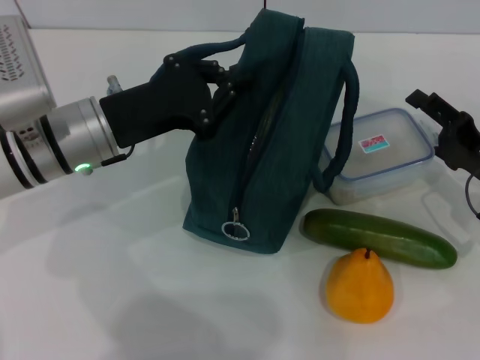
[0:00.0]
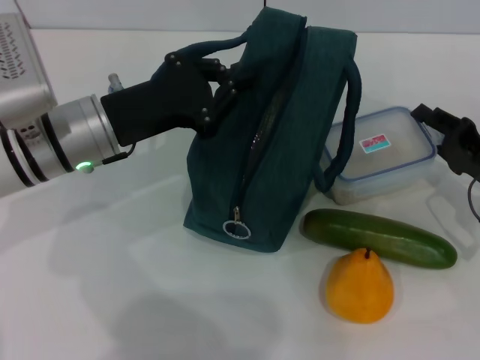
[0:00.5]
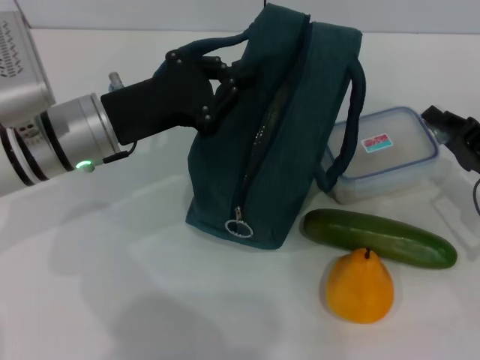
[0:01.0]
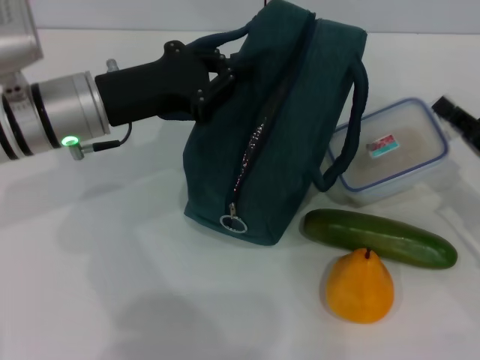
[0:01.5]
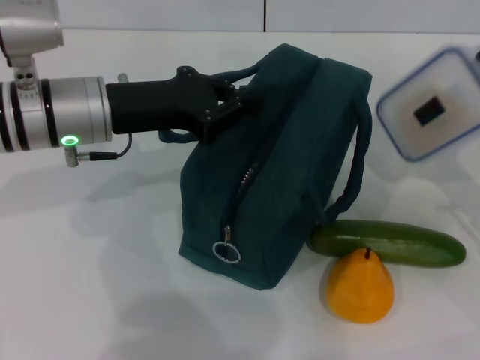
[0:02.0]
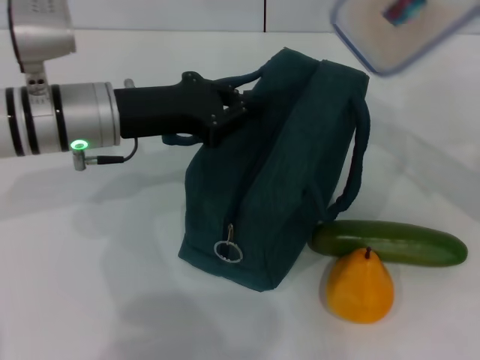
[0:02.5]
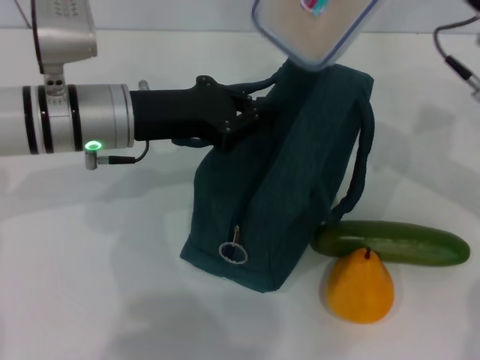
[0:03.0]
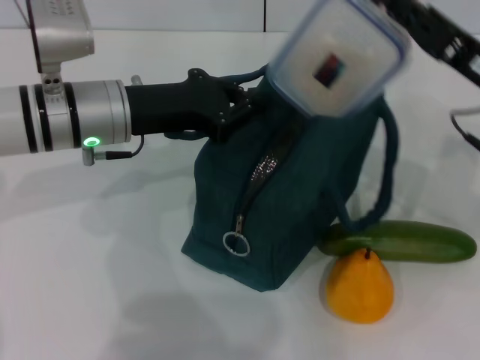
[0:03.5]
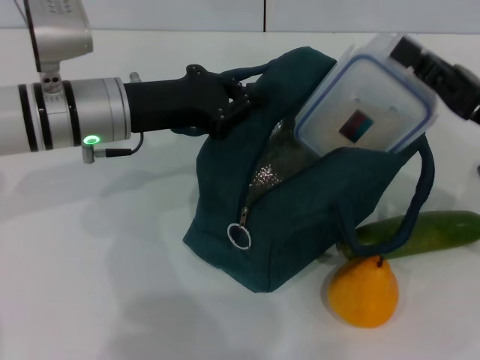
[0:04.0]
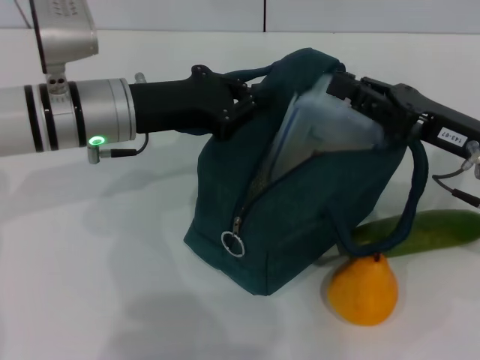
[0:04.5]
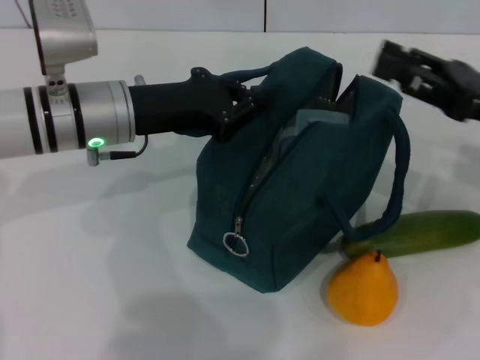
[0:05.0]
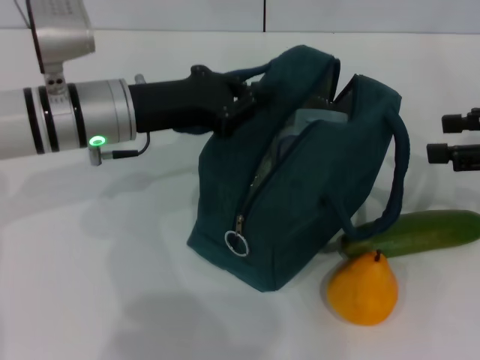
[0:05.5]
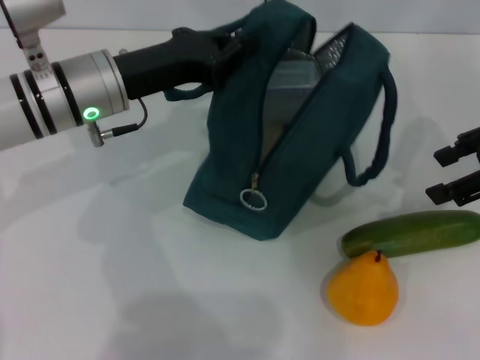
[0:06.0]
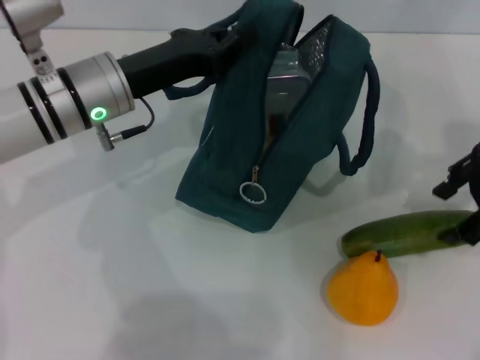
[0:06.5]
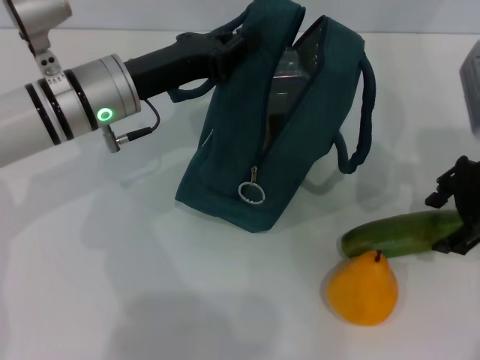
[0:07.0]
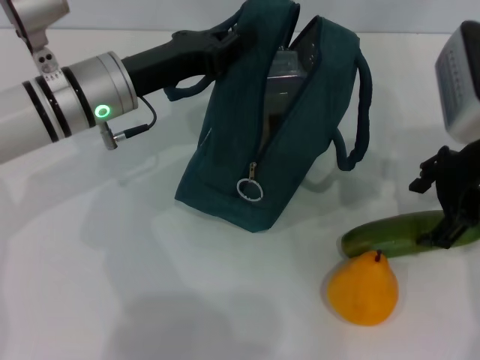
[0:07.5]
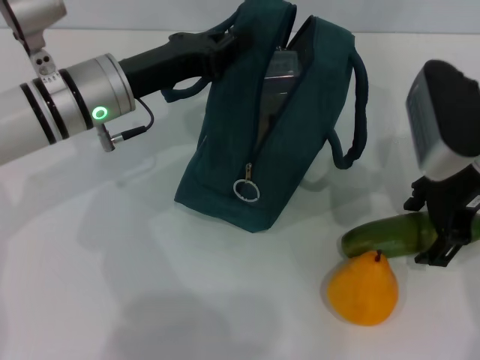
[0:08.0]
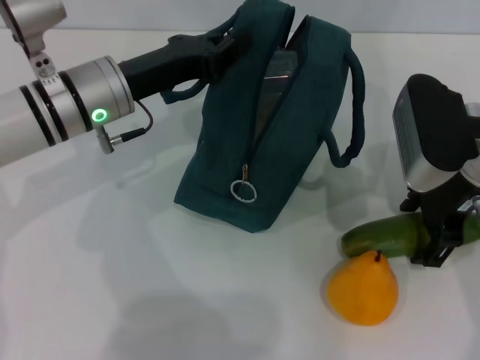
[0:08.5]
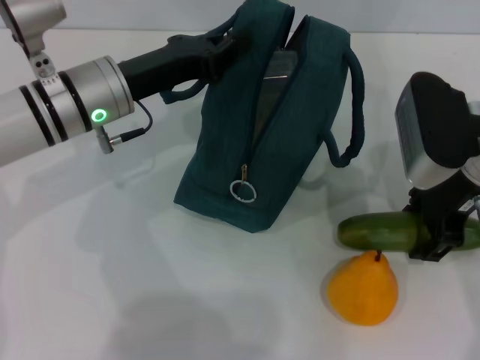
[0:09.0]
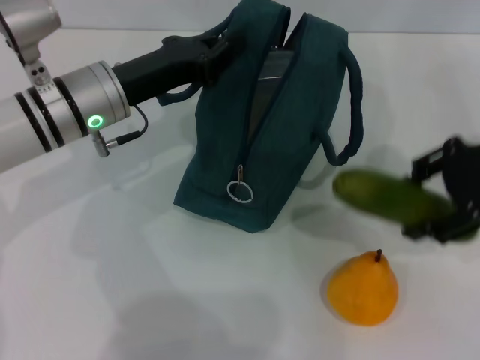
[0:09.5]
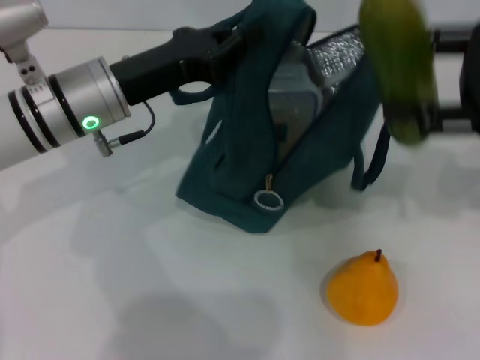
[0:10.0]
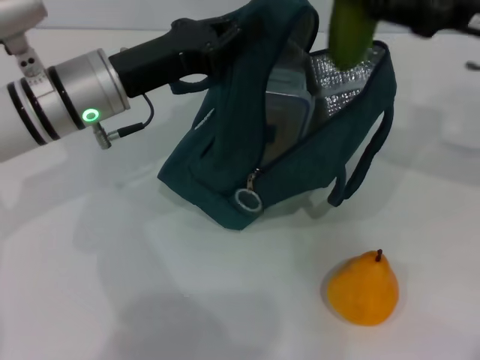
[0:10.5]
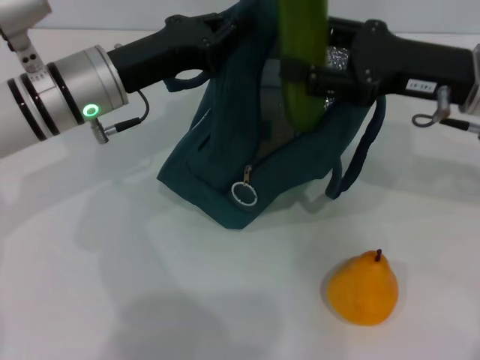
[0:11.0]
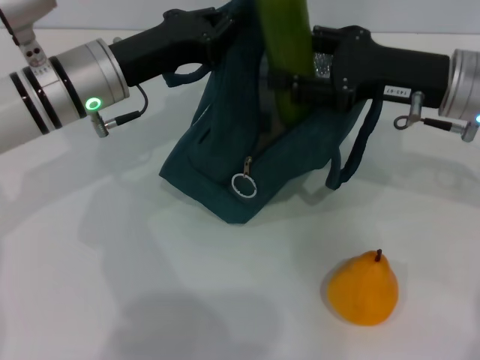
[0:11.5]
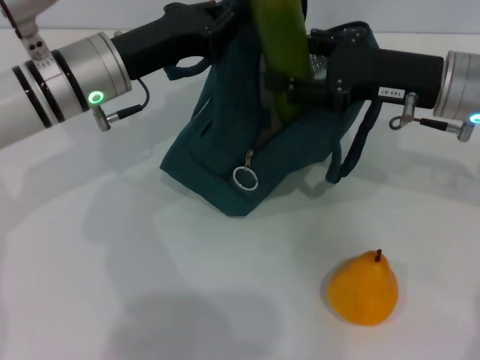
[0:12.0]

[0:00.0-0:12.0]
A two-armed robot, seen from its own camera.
Step, 0:01.5 to 0:05.0: Place the lunch box into the lunch bag with your right hand.
Step, 0:05.5 to 0:08.5: Pick up the cucumber with your right hand.
0:00.0 to 0:02.0: The right gripper shifts by some 5 cm, and closes its fingers.
0:04.0 to 0:06.0: The right gripper goes roughly 10 cm upward, and opens.
0:06.0 to 0:08.0: The right gripper shifts some 10 cm to the left.
0:08.0 to 0:10.0: The right gripper is displaced to the right and upward by some 10 cm.
0:10.0 to 0:12.0: The right gripper heads to the left, downward and forward, covering about 15 cm.

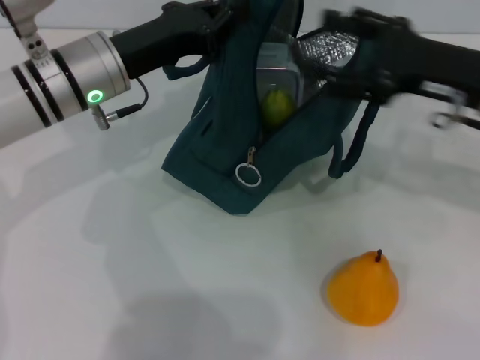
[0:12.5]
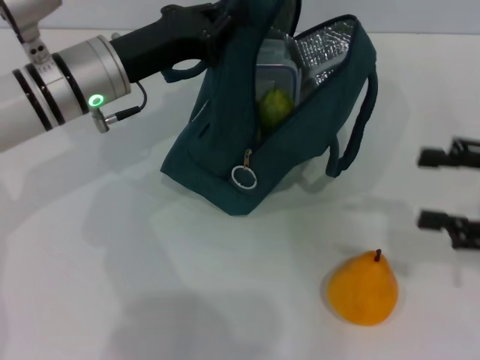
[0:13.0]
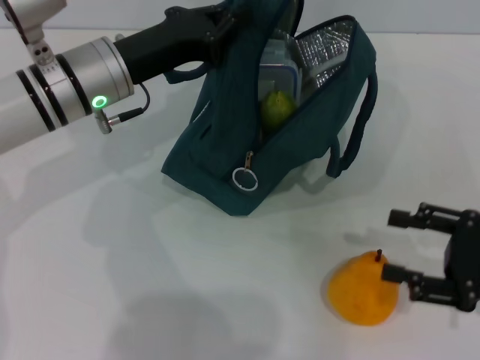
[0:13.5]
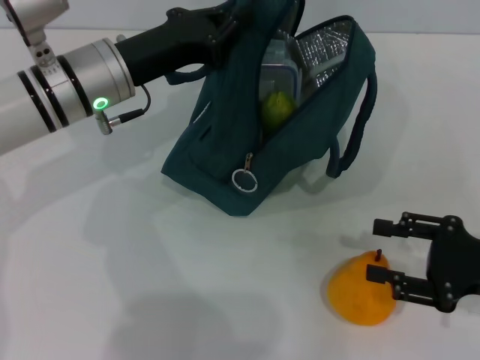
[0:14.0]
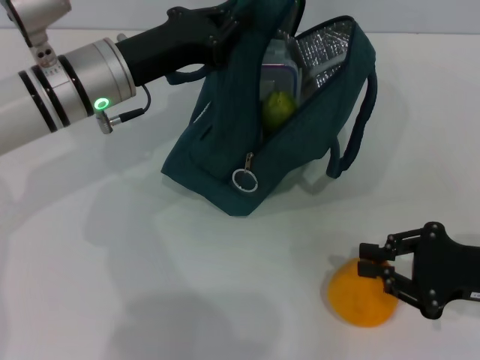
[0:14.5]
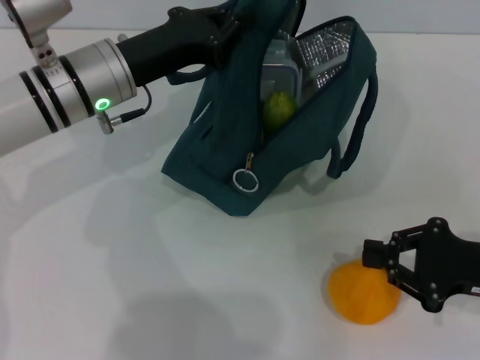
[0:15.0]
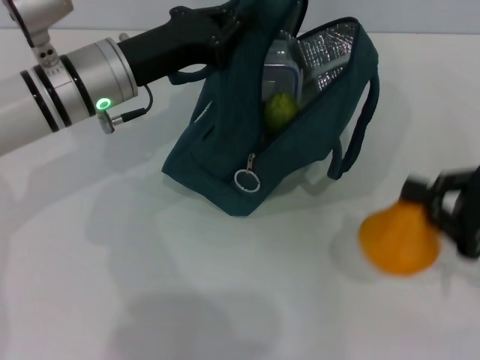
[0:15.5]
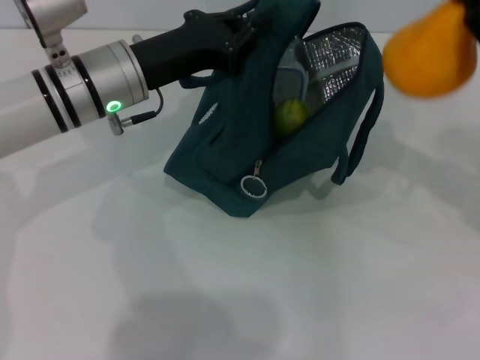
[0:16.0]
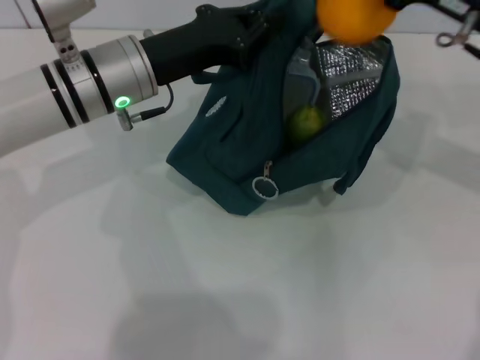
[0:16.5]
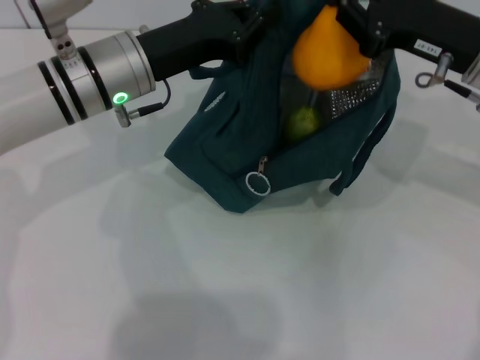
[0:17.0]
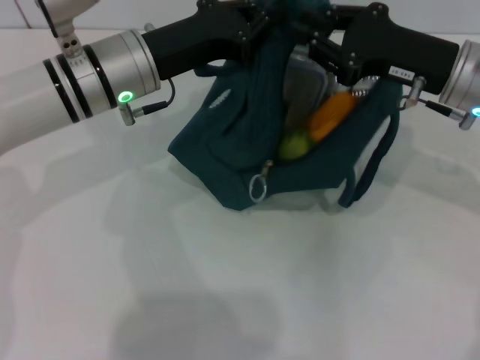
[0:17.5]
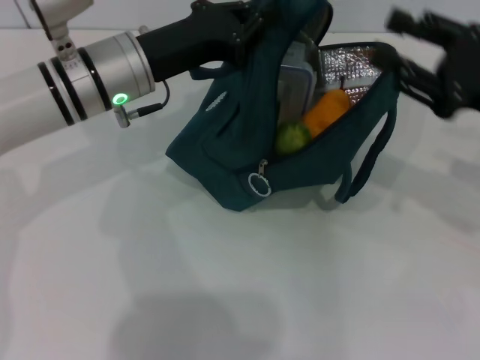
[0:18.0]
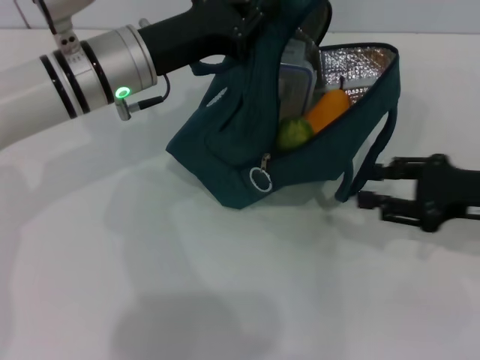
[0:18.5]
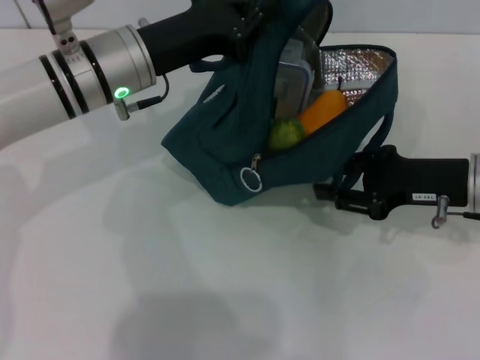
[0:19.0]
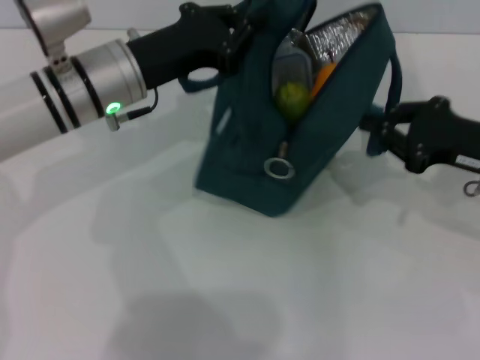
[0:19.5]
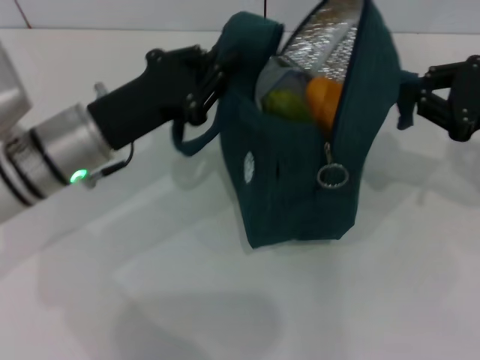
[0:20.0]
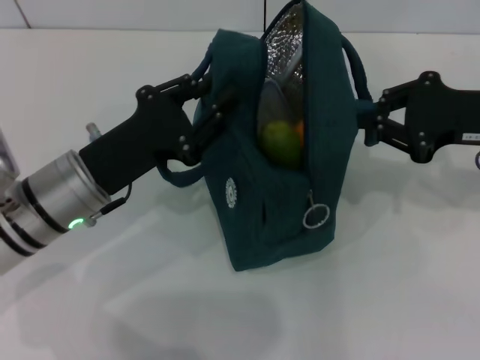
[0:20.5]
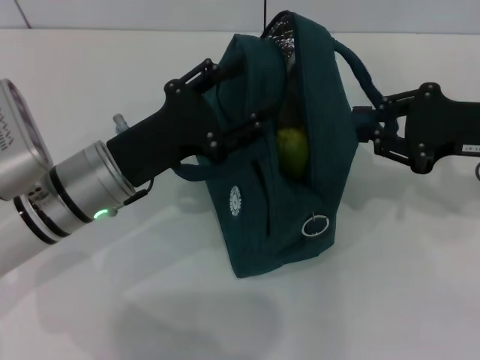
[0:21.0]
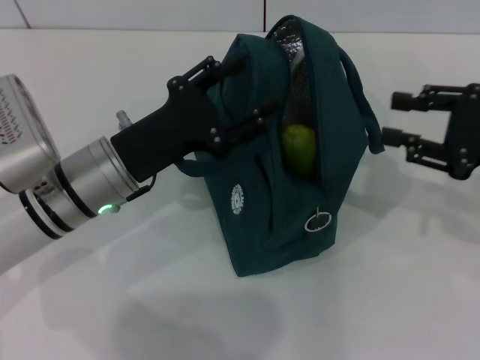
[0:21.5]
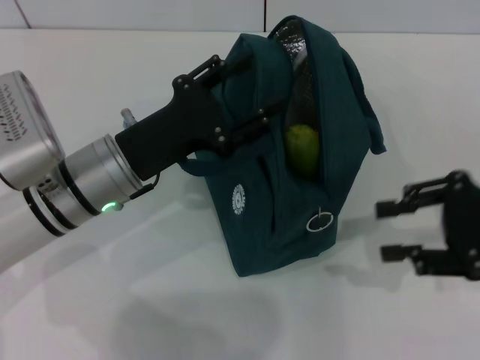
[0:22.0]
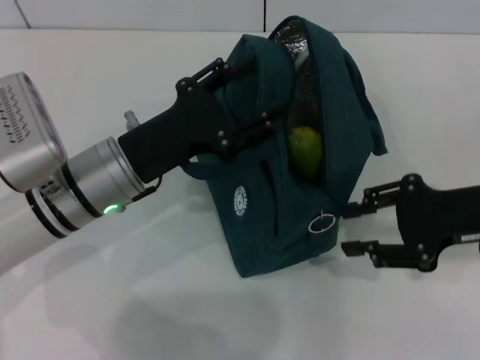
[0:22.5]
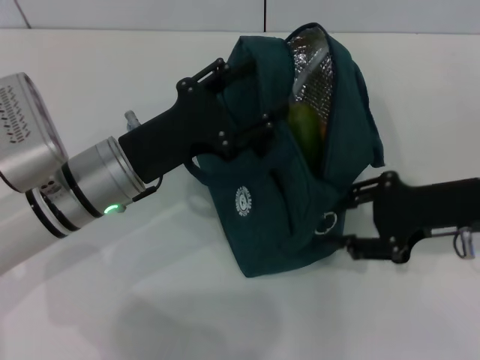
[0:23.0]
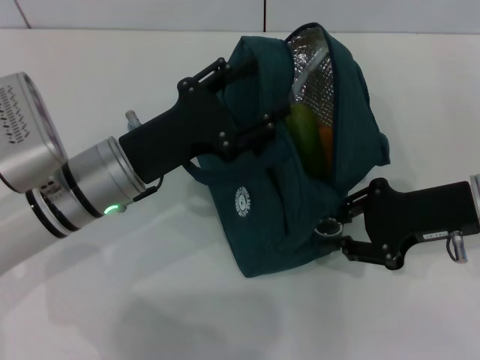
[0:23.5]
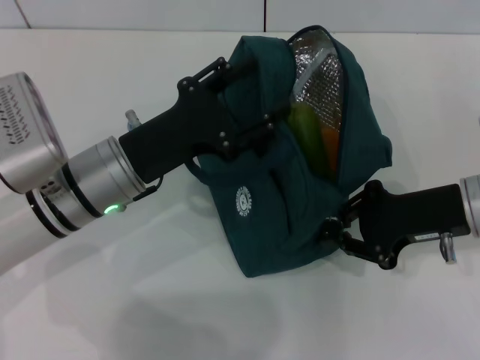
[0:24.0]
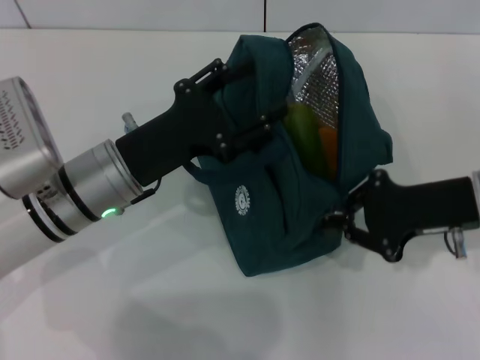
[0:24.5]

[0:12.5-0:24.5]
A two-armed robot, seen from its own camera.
Step, 0:12.5 to 0:14.5: Grab the pear with your right hand.
Step, 0:18.0 to 0:21.0: Hold the lunch bag with your right hand.
0:12.5 to 0:14.5: The right gripper goes some 15 cm backward, downward and to the right, and closes up.
0:14.5 to 0:16.5: The right gripper is displaced forward, upward and to the left by approximately 20 cm, and closes its fingers.
0:16.5 to 0:18.5: The right gripper heads downward, backward and to the right, covering some 15 cm, and opens.
0:18.5 to 0:20.5: The left gripper goes roughly 10 cm backward and downward. Meanwhile the right gripper is displaced upward by roughly 5 cm, and closes up.
0:20.5 to 0:22.5: The right gripper moves some 5 cm, and opens up. Meanwhile the left gripper opens.
0:22.5 to 0:24.5: The right gripper closes up.

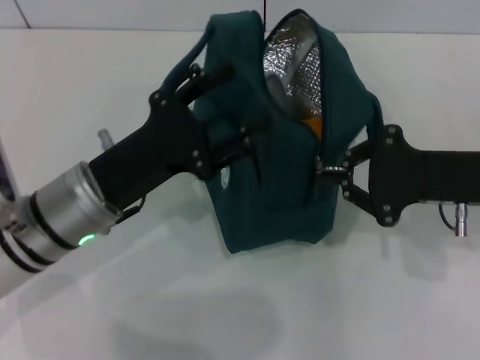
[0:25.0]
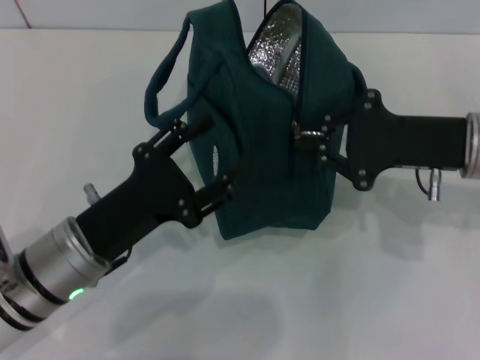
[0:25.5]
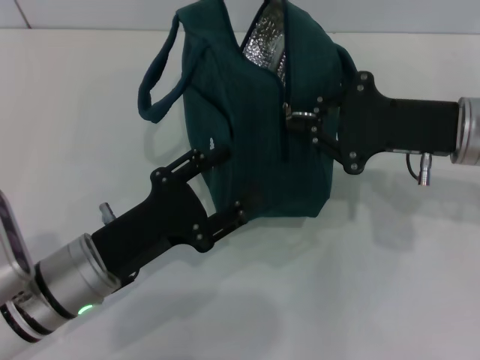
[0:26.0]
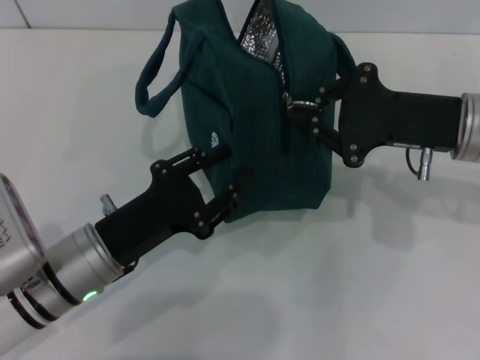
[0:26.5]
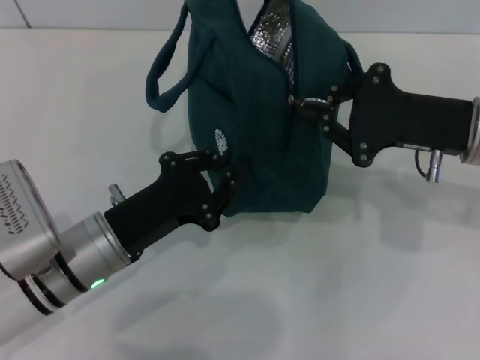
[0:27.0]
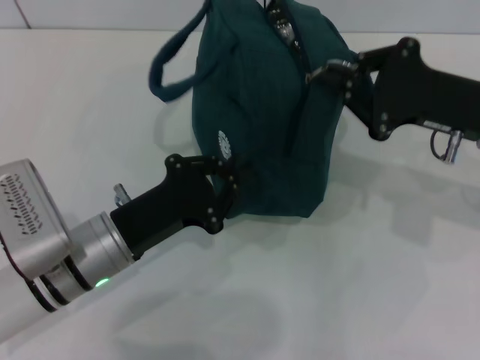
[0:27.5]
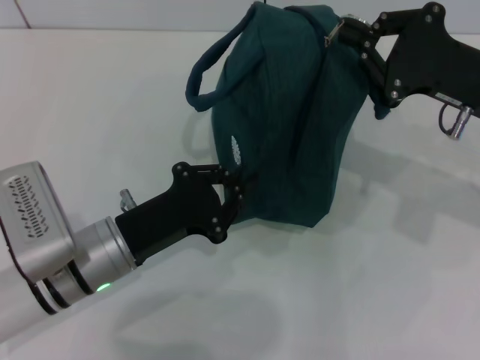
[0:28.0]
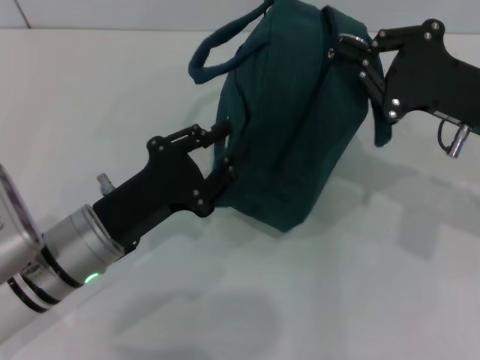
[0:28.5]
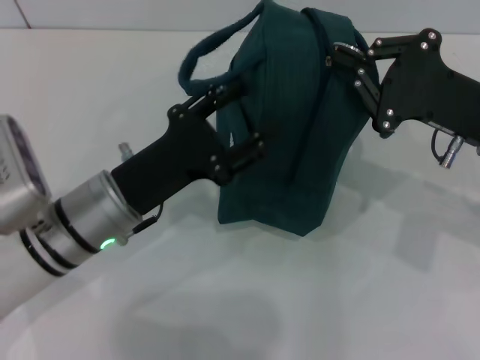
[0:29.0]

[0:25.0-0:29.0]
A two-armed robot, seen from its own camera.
0:25.0 to 0:27.0: The left gripper ends up about 5 cm from where it was, and closes up.
0:27.0 to 0:29.0: The left gripper opens up.
